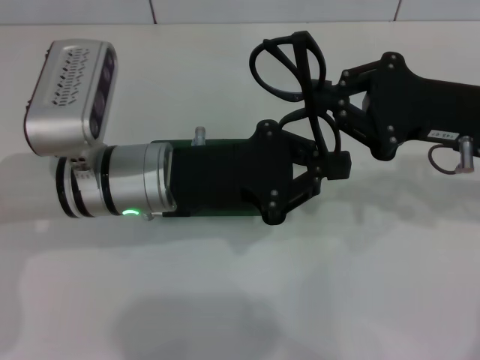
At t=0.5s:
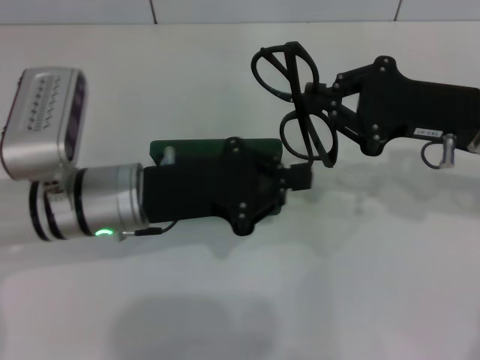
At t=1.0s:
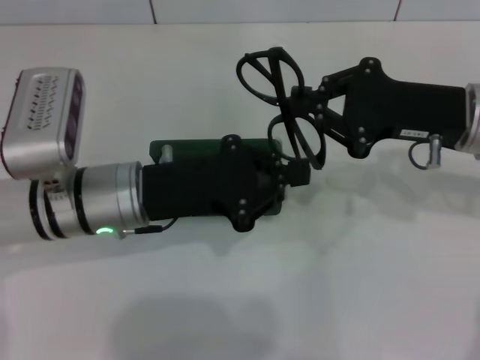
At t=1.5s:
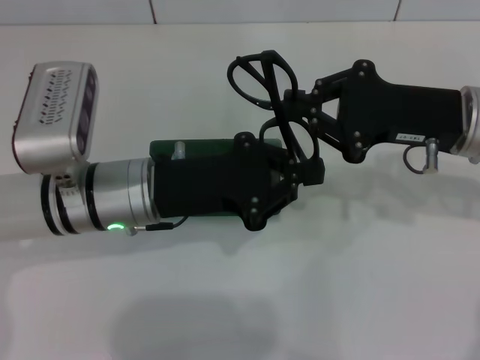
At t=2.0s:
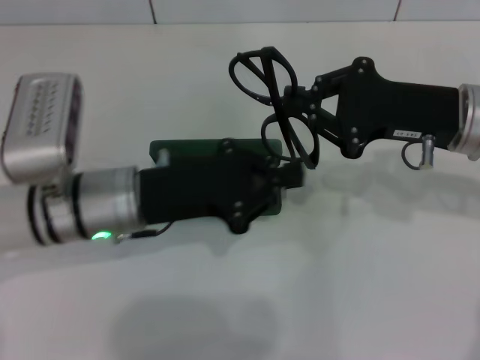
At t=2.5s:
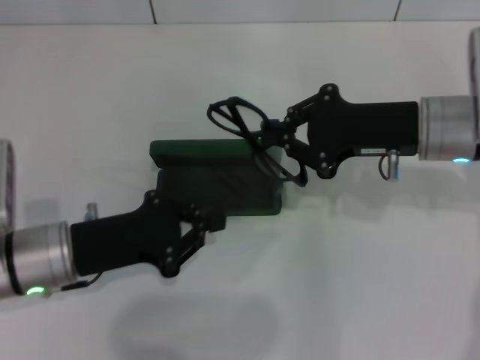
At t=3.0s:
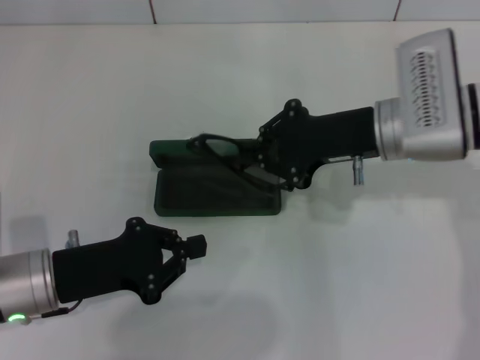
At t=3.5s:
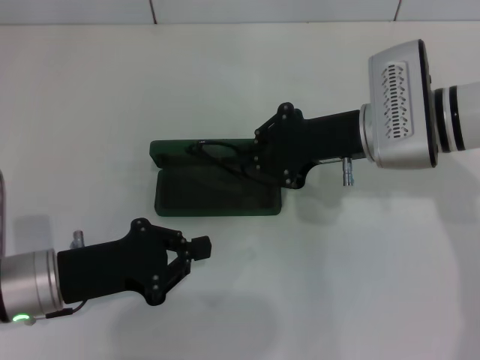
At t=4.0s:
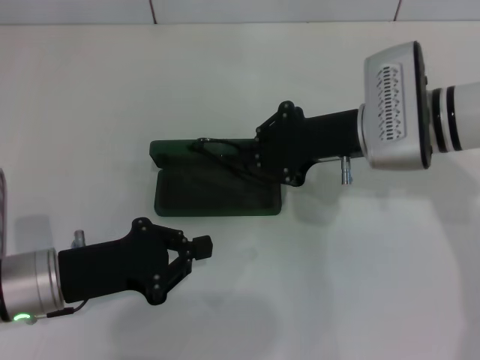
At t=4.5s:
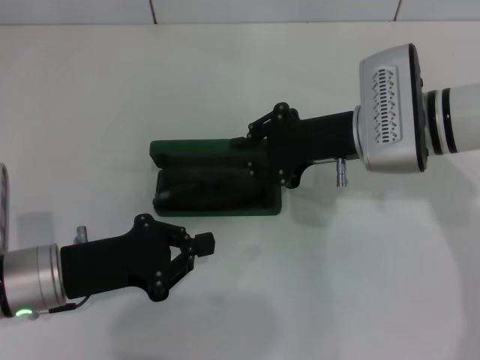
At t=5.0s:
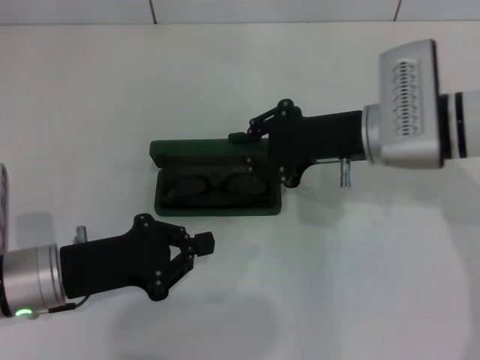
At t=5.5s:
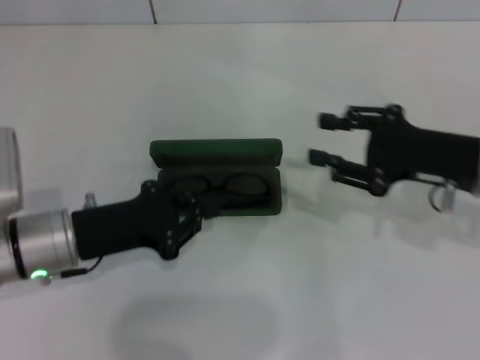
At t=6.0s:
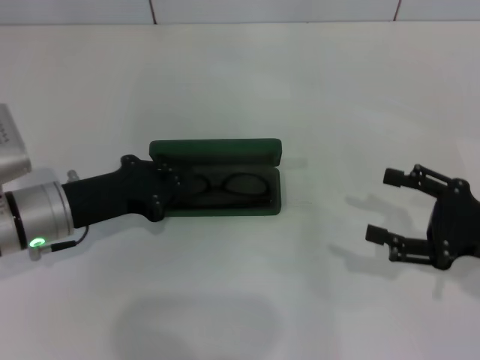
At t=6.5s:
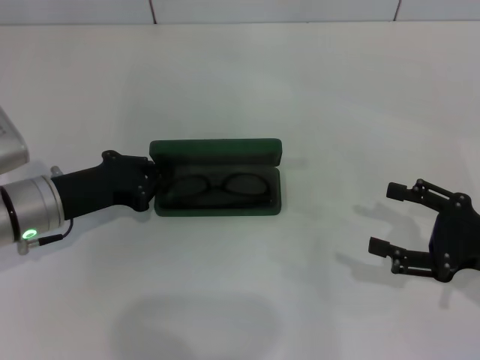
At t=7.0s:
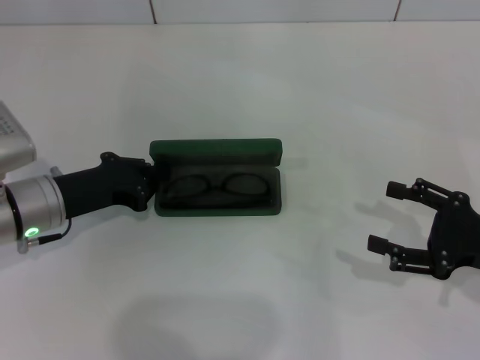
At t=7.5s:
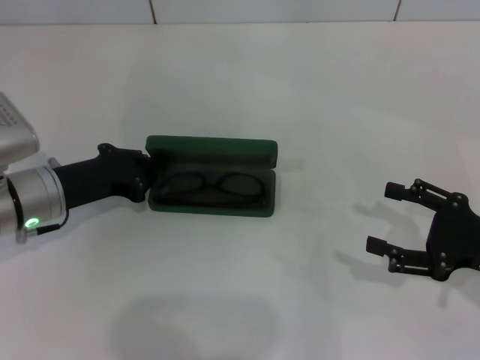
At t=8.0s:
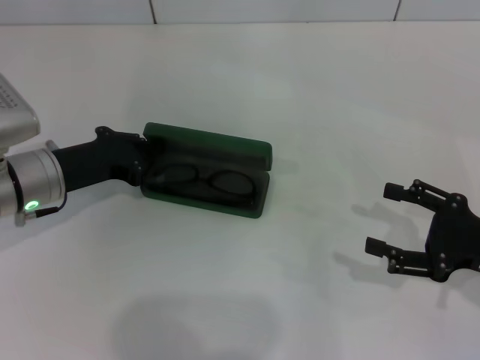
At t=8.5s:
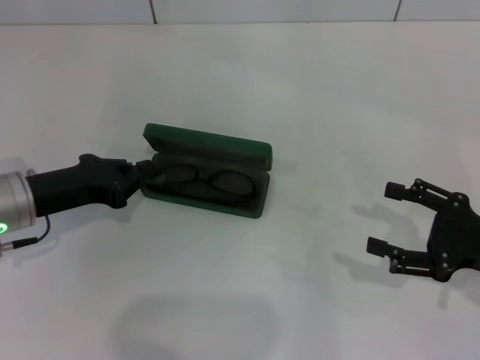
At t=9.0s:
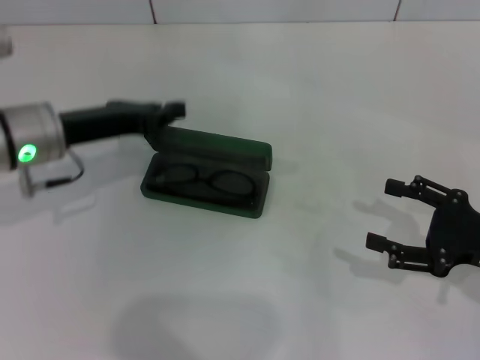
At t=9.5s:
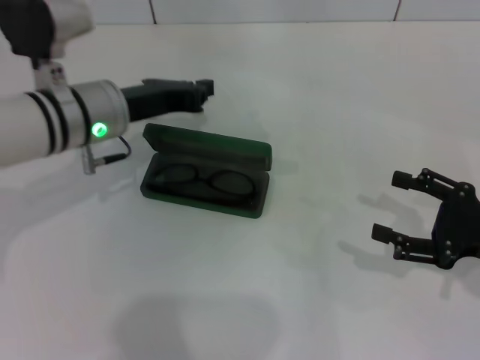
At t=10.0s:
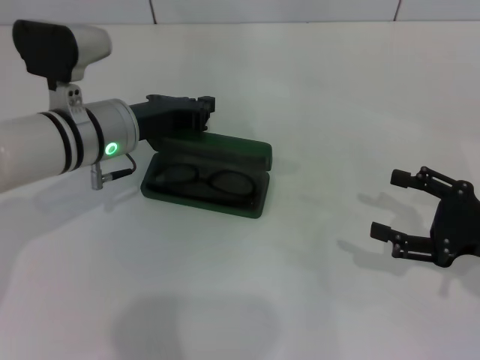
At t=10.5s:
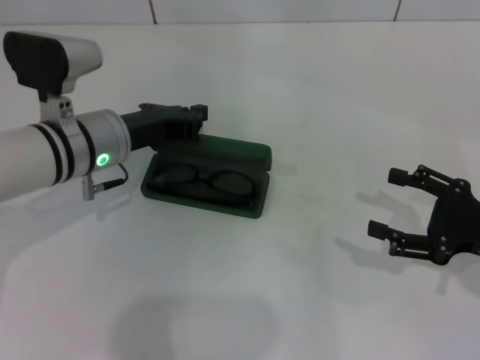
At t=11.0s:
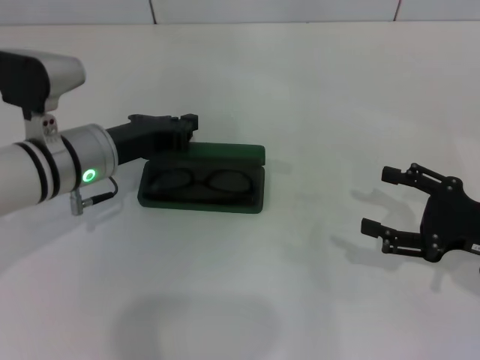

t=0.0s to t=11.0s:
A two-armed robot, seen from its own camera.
Step, t=0.0s to t=4.0s: Put the glasses into the case with your right hand.
t=2.0s to t=3.5s: The right gripper is displaced to the left by approximately 5 cm, while the left gripper shifts approximately 10 cm to the left and backward.
t=3.5s to t=5.5s: The right gripper is displaced to the right and backward by about 10 cm.
t=5.5s to t=7.5s: The left gripper goes roughly 5 cm forward. The right gripper heads backward, to the right and downward, covering roughly 10 cm, and opens up.
t=7.5s to t=9.0s: The left gripper goes roughly 5 cm upward.
t=9.0s to t=11.0s: The left gripper changes place by some 5 cm.

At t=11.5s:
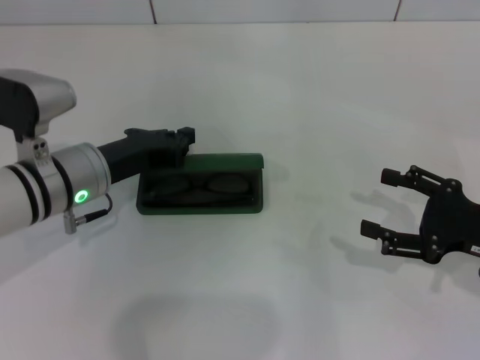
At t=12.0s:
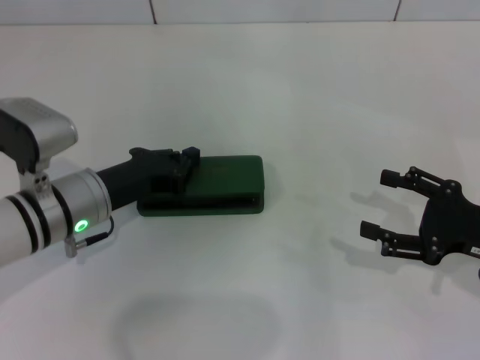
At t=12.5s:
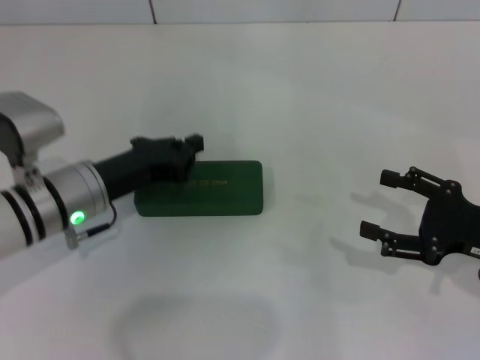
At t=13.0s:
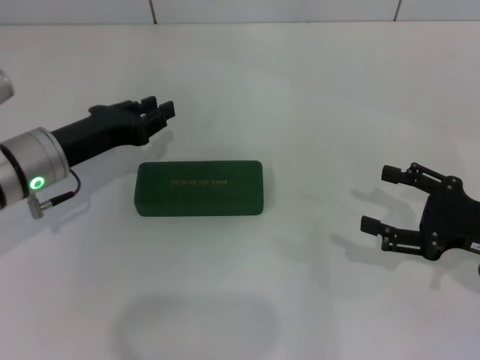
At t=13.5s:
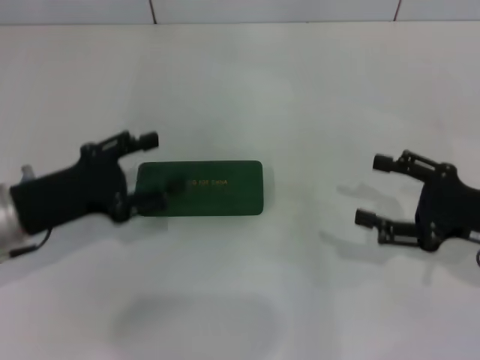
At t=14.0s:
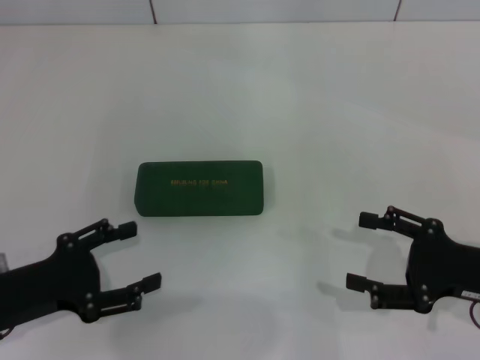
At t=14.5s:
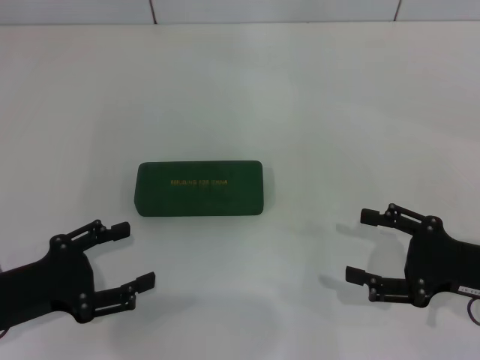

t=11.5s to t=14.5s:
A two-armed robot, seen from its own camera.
t=11.5s to t=13.0s: The grippers stay close to where they were, moving slightly.
t=13.0s to t=14.5s: The left gripper travels backward by roughly 15 cm, and opens.

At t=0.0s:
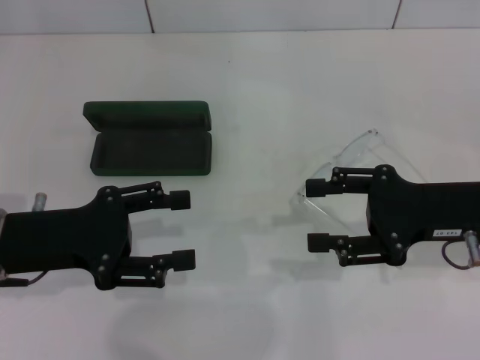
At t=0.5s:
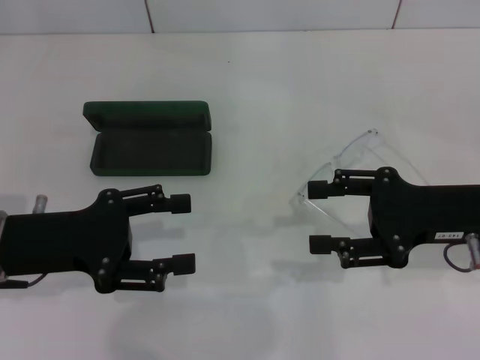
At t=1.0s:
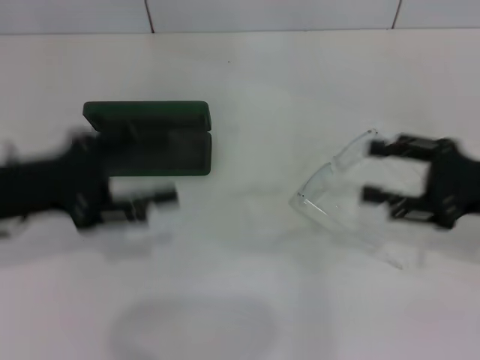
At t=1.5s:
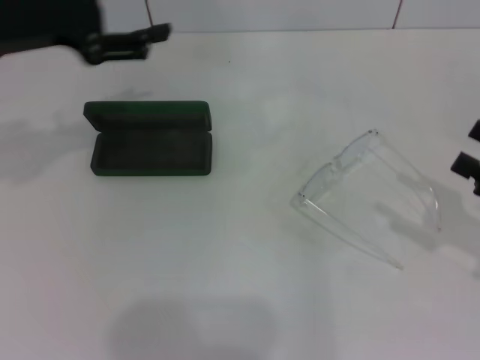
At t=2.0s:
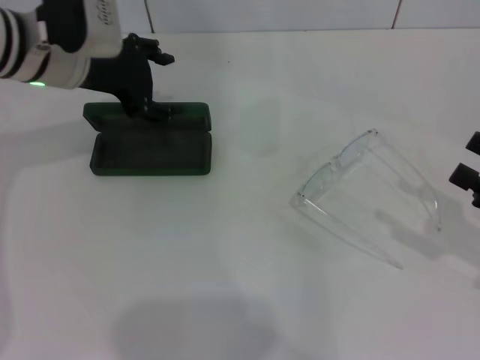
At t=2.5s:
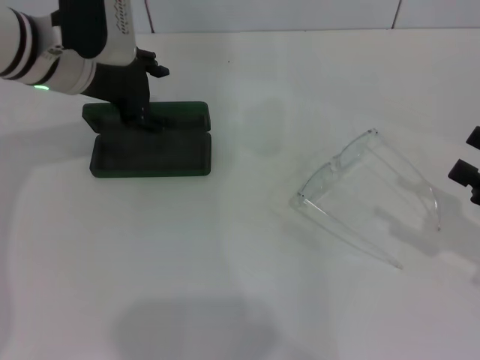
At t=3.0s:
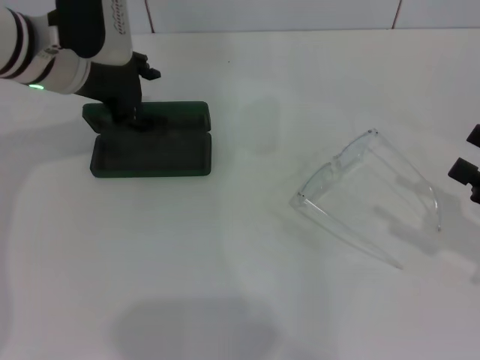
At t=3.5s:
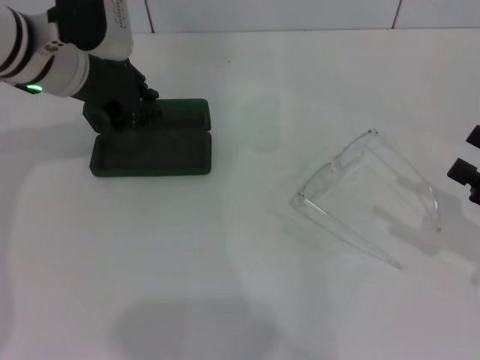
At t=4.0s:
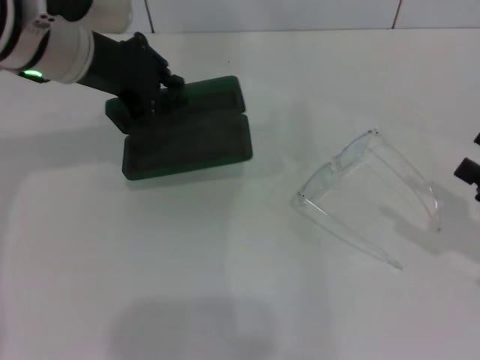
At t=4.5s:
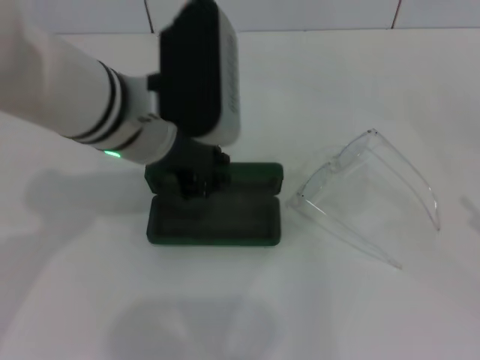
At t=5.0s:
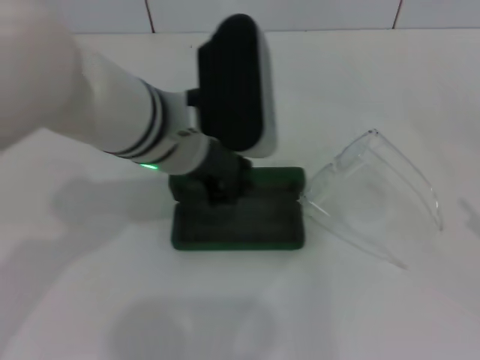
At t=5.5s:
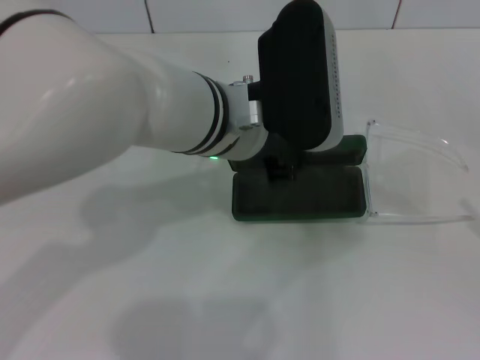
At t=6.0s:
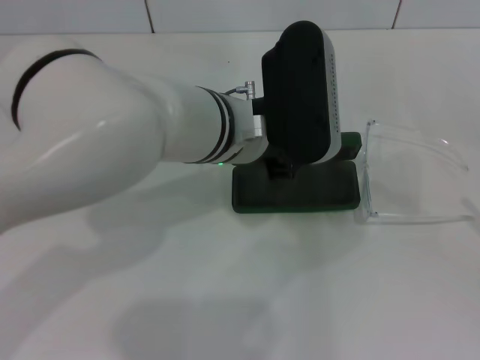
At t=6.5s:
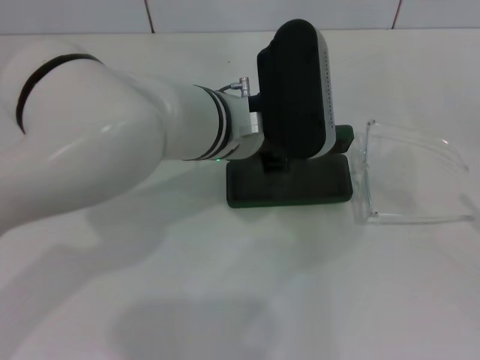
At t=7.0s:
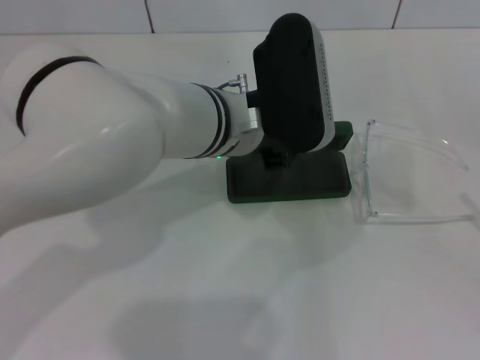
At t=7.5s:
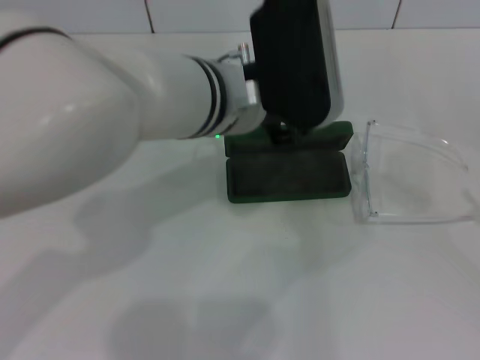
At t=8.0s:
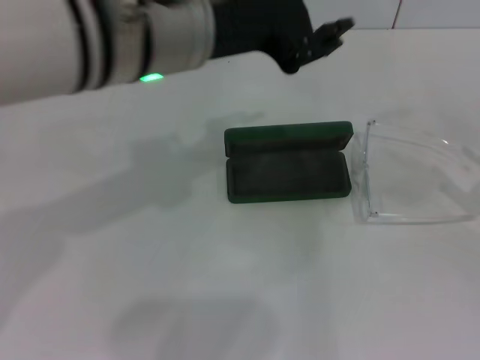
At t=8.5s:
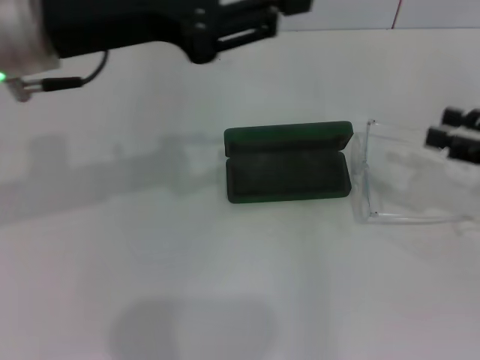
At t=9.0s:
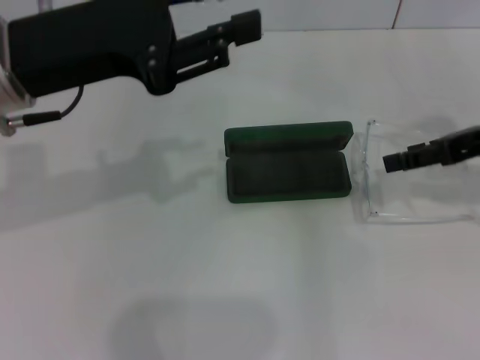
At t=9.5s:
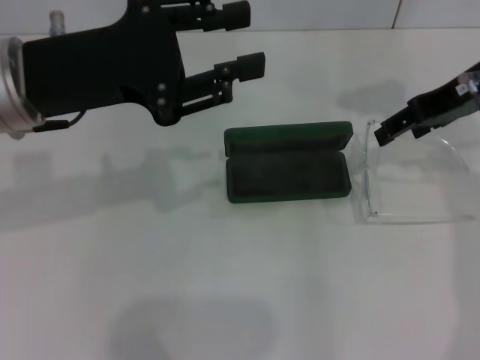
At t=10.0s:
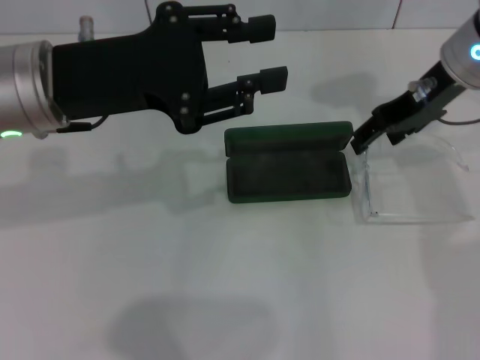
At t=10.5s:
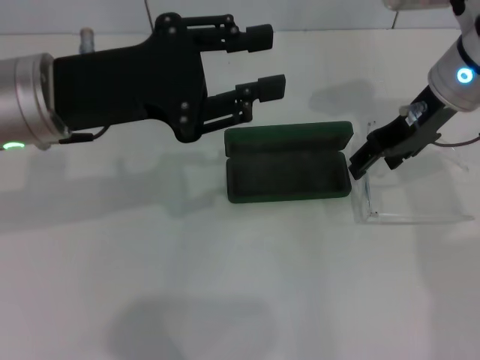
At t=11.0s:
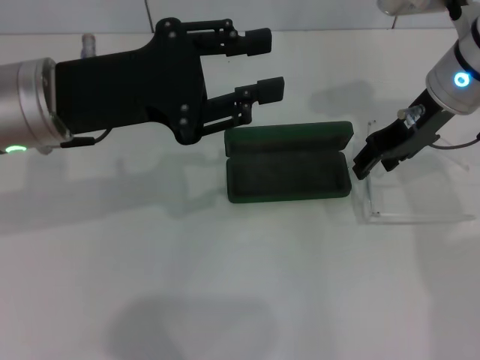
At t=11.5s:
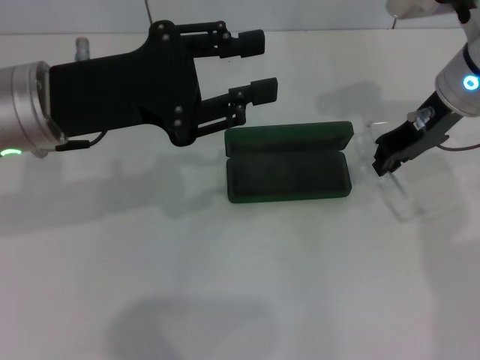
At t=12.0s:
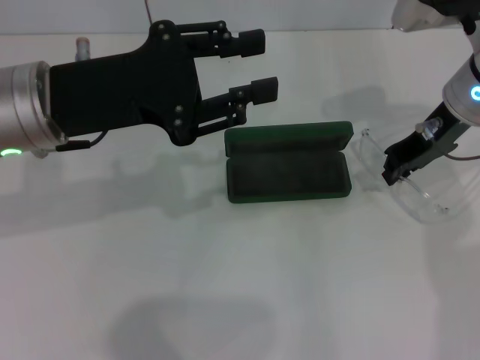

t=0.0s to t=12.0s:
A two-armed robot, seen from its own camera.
Step, t=0.0s to t=3.0s: Grab the glasses case with your left hand.
Step, t=3.5s to t=7.5s: Place the glasses case in the center of the table with your left hand.
Step, t=8.0s to t=11.5s: Grab the eyeglass frame with your right hand.
t=0.0s to t=2.0s: The left gripper moves forward, upward and to the right, about 20 cm. The right gripper is displaced to the right and backward by about 15 cm.
t=2.0s to t=4.0s: The left gripper shifts by approximately 5 cm, and closes.
t=4.0s to t=6.0s: The right gripper moves backward, about 5 cm, while the left gripper shifts roughly 15 cm to the right.
t=6.0s to t=8.0s: The left gripper travels upward and to the left by some 10 cm, and opens up, while the right gripper travels forward by about 10 cm.
t=8.0s to t=10.0s: The left gripper heads to the left and downward, covering approximately 10 cm. The right gripper shifts roughly 30 cm to the left, forward and upward.
t=10.0s to t=12.0s: The right gripper closes.
